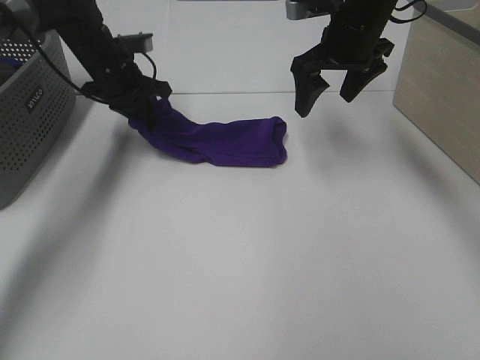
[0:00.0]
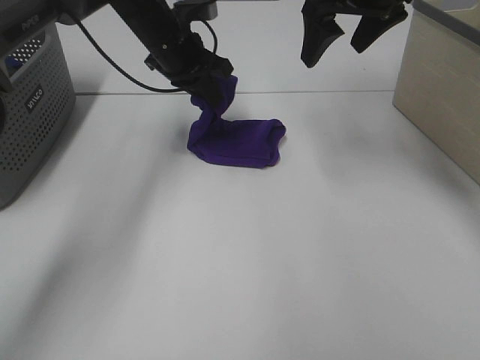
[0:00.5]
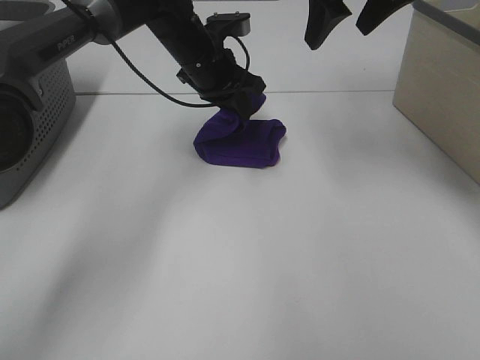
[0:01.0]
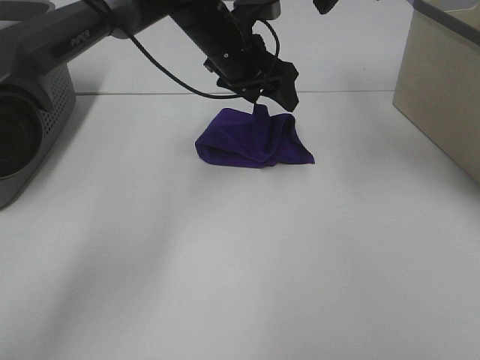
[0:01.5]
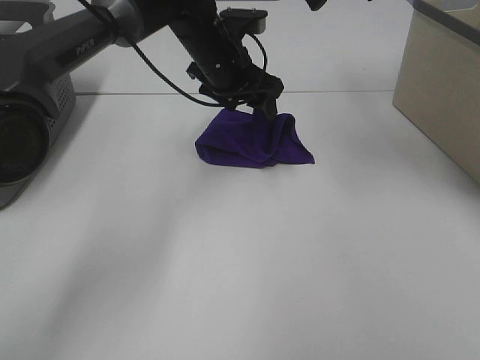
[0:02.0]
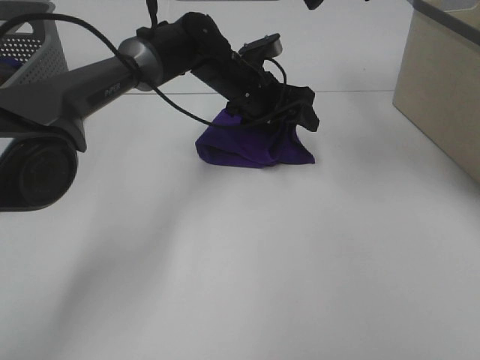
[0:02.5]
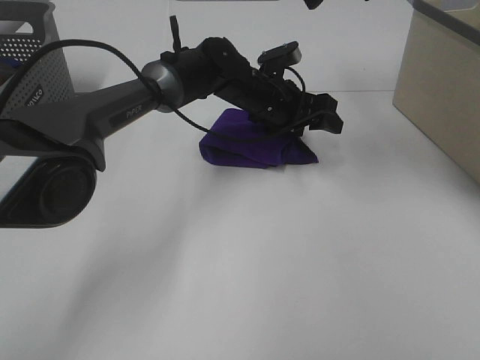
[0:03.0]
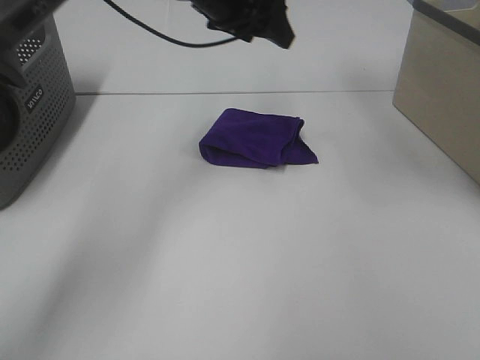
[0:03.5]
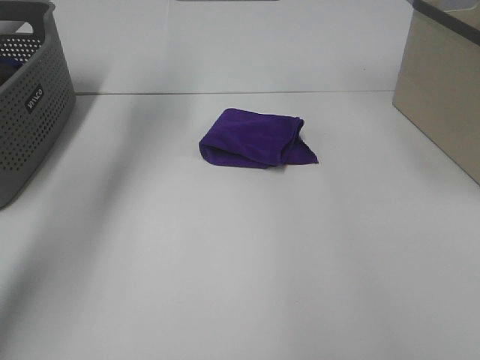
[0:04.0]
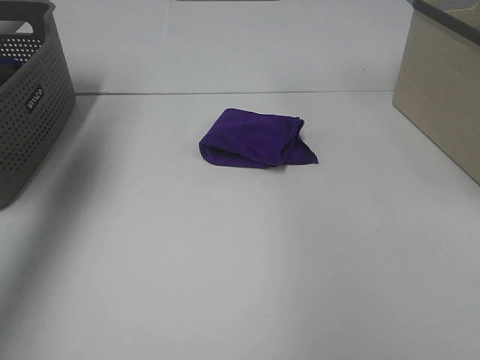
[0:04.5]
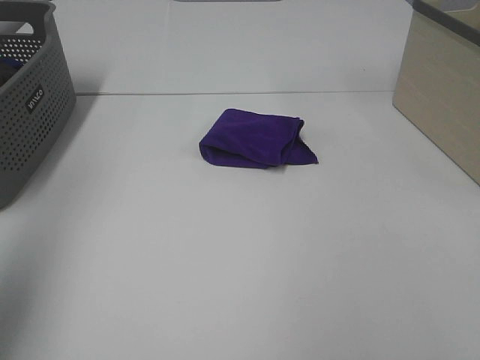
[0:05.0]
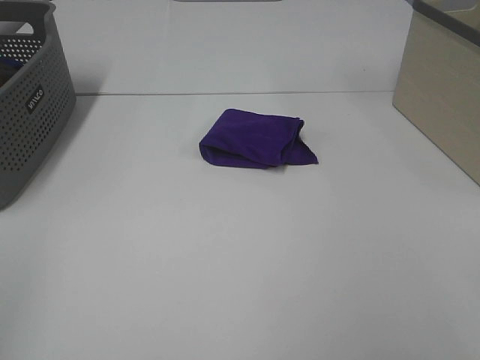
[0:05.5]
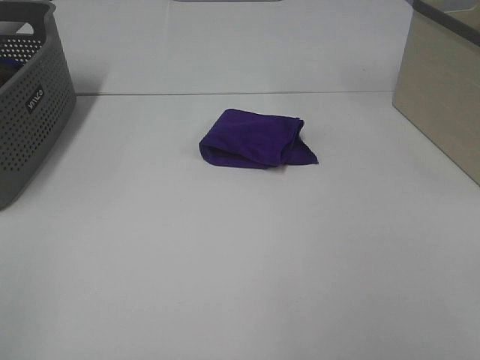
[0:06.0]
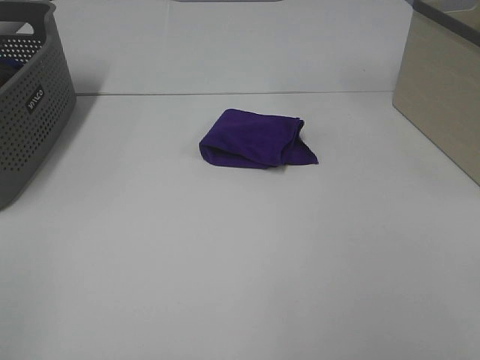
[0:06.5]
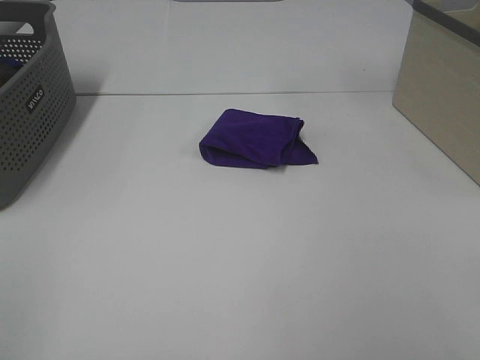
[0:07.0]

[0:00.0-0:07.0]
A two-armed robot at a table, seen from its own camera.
Task of the whole recording: Fold towels.
Step, 0:01.5 to 0:03.0: Left hand: adjust the purple towel.
0:00.0 to 0:02.0: The right gripper travels upward by roughly 15 cm; the left gripper travels to the right by approximately 15 cm, and opens.
0:02.0 to 0:03.5: The right gripper shifts by roughly 5 cm; the left gripper goes about 10 cm upward.
0:03.5 to 0:05.0: The left gripper travels backward and to the left by approximately 40 cm; the right gripper travels backward and to the right by approximately 35 cm.
0:05.0 to 0:07.0: The left gripper goes roughly 15 cm backward and downward.

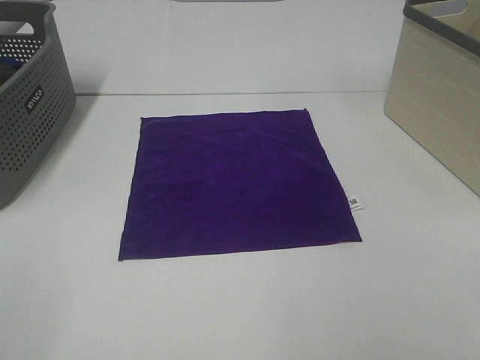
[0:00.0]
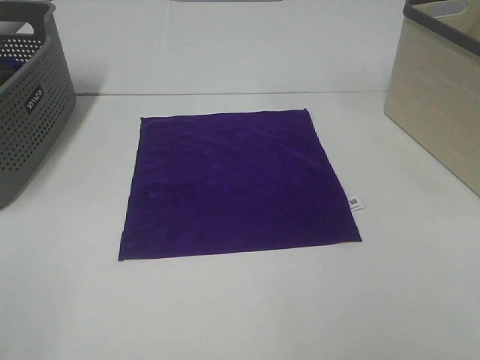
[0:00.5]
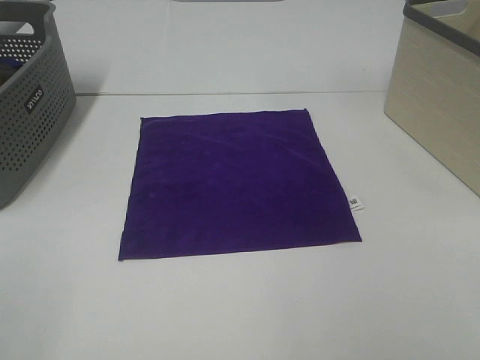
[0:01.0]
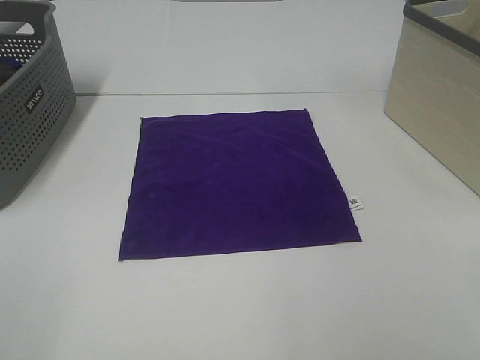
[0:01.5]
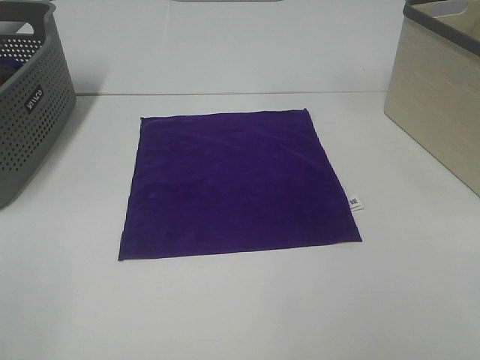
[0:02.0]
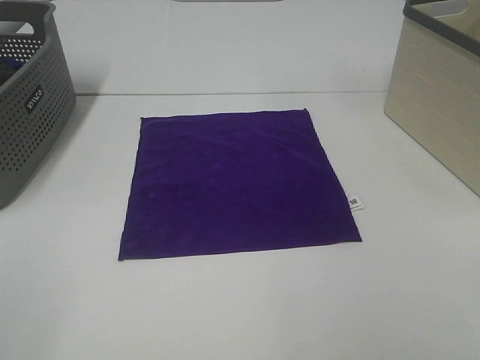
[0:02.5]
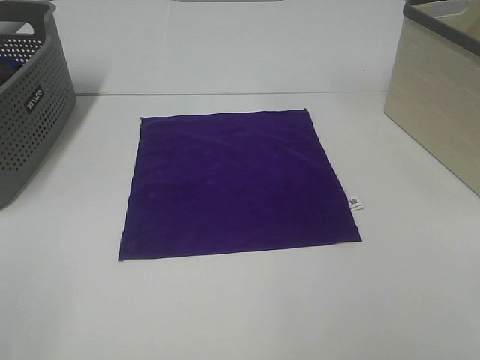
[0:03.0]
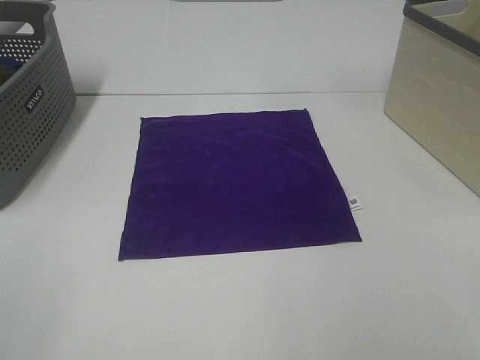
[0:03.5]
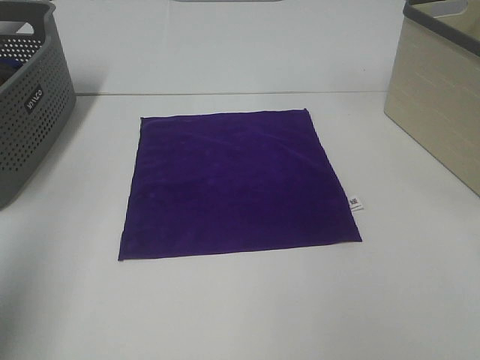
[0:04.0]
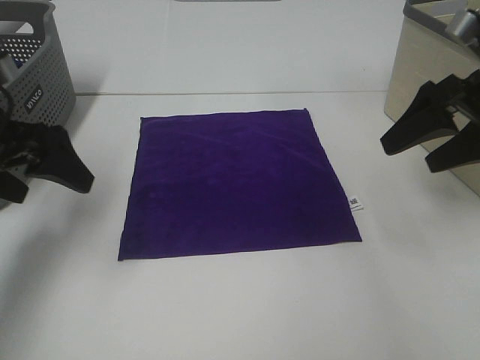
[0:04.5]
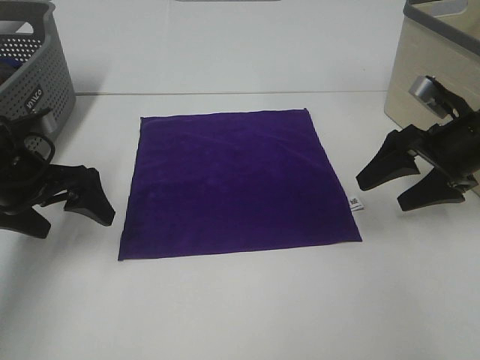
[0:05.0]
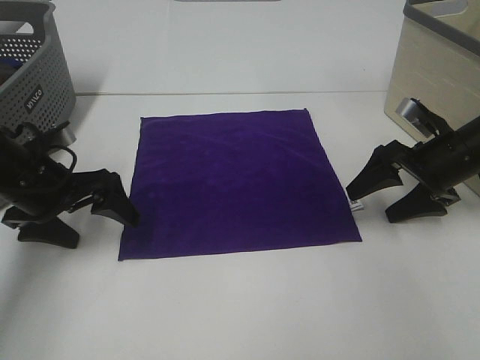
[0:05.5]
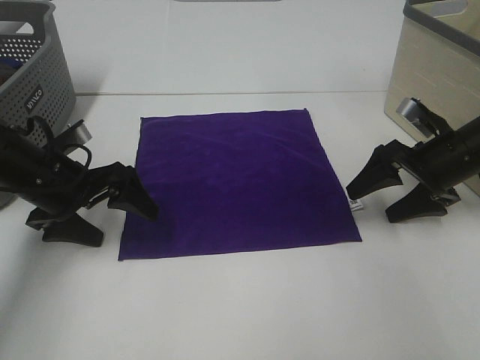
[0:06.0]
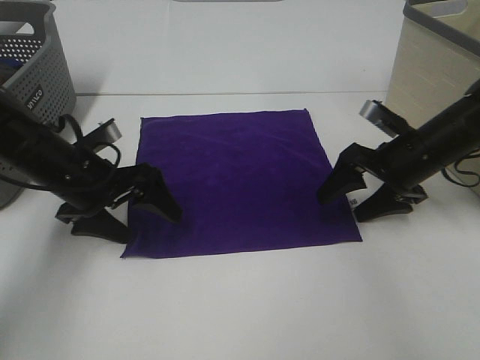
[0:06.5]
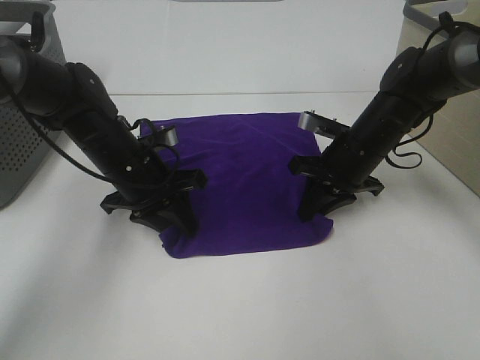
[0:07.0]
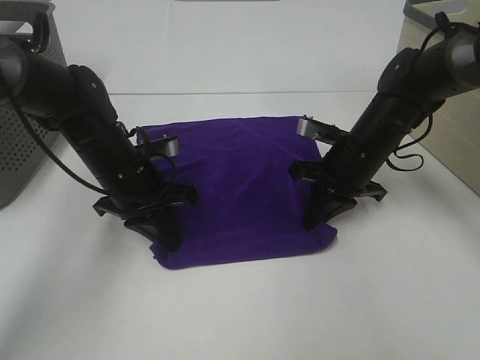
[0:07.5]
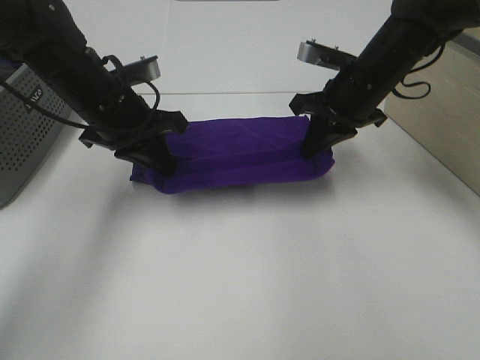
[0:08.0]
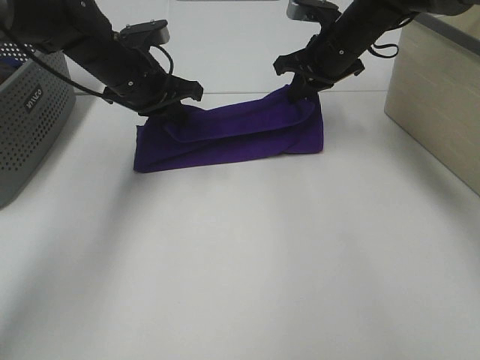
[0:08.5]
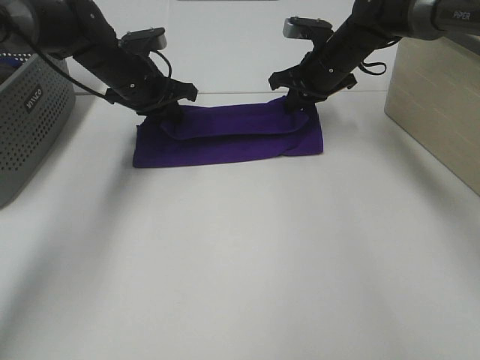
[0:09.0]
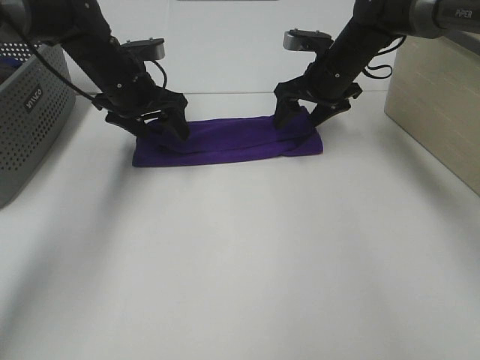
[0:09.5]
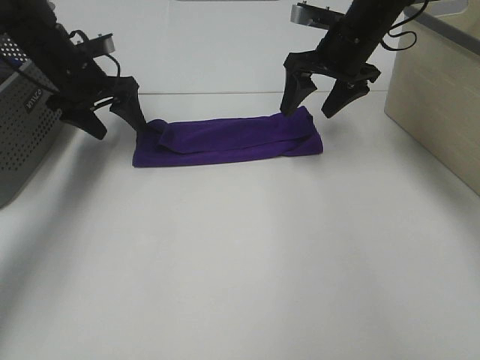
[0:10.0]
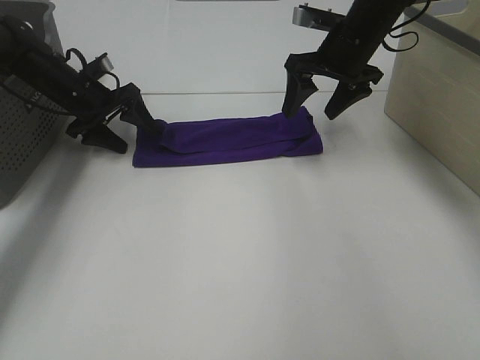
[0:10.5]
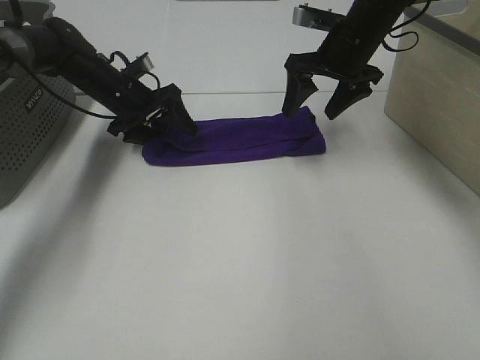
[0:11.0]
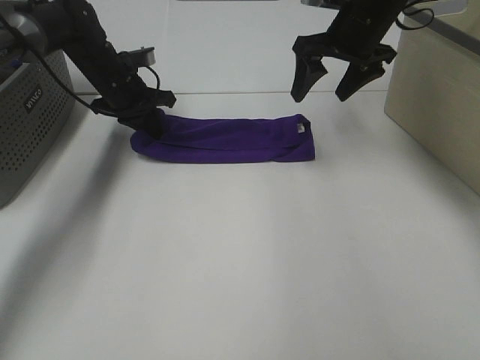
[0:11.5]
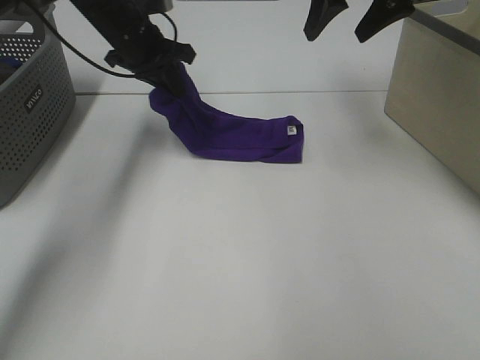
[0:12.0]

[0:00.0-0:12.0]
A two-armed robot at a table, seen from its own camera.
Task of the whole recording: Fold towels.
Step, 0:00.0 to 0:07.0: Left hand: grab the bottom left corner of purple towel.
Step, 0:00.0 to 0:07.0: Right hand: grab the bottom right corner of purple towel.
Step, 0:07.5 to 0:09.0: Left hand: fold the purple towel up.
Step, 0:07.5 to 0:09.0: Right hand: fold the purple towel up.
0:00.0 to 0:02.0: Both grippers stay about where they are.
0:02.0 to 0:04.0: The left gripper moves forward and upward, approximately 15 cm.
0:04.0 to 0:06.0: The two grippers go approximately 30 cm downward and forward.
0:06.0 to 0:08.0: The left gripper travels to the right, upward and forward by about 10 cm, and closes up; the right gripper is displaced to the left, upward and forward by approximately 15 cm, and closes.
0:08.0 to 0:10.0: The right gripper goes approximately 5 cm forward, and opens. The left gripper heads forward and to the left, covering about 15 cm, and opens up.
0:10.0 to 0:12.0: The right gripper is displaced upward by approximately 10 cm; the left gripper travels to the right and upward by about 10 cm, and closes its fingers.

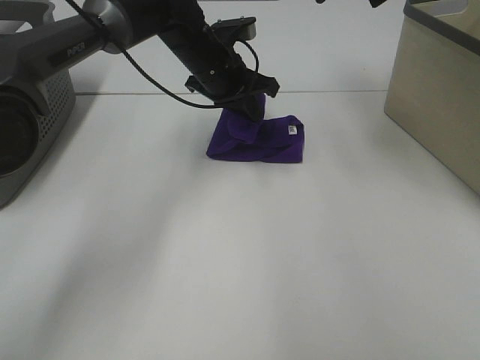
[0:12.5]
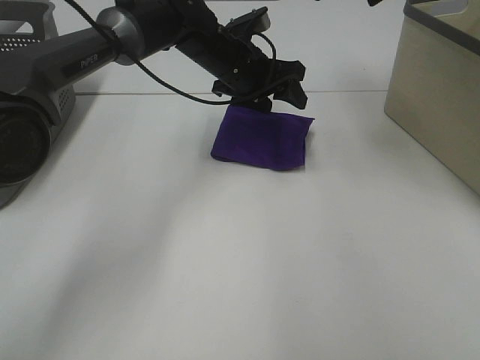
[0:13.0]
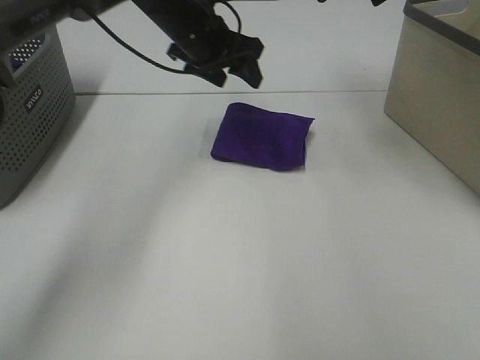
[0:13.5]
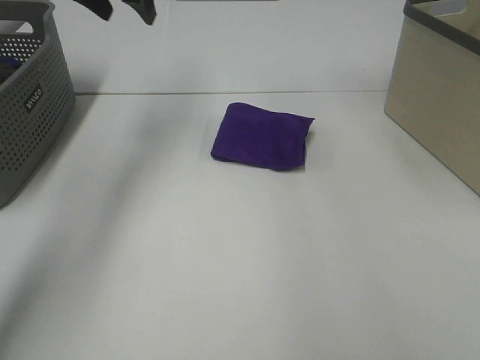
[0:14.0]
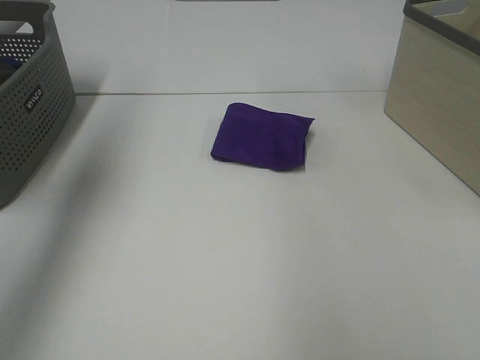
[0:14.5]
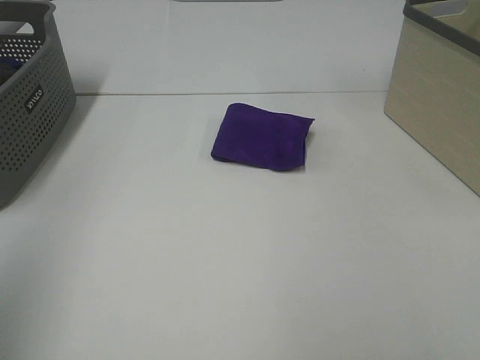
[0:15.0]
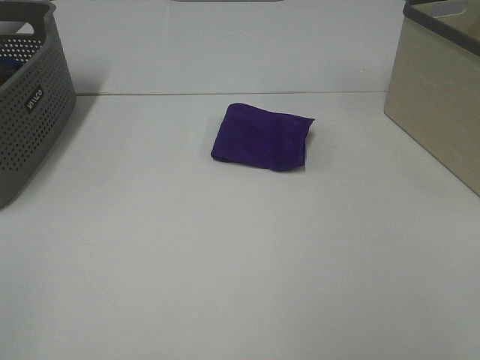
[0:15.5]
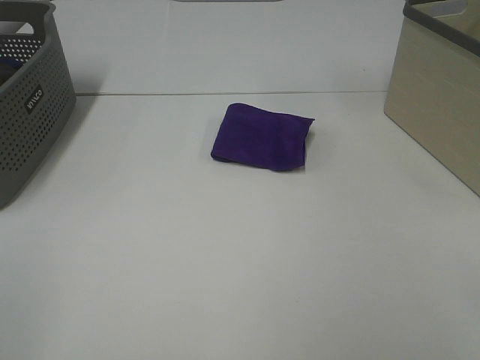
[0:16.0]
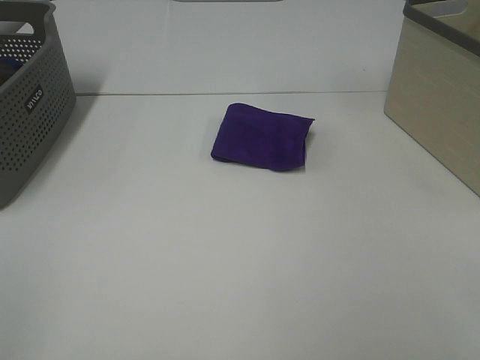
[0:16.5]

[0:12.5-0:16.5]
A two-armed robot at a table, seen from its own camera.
Task of the whole recording: Fold towels.
0:12.5 to 0:14.5: The left gripper heads to the left, upward and backward, covering roughly 40 cm, and opens; the right gripper moves backward and to the right, approximately 25 cm.
0:14.5 to 0:16.5: The left gripper is displaced backward by approximately 35 cm.
